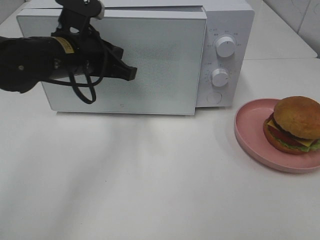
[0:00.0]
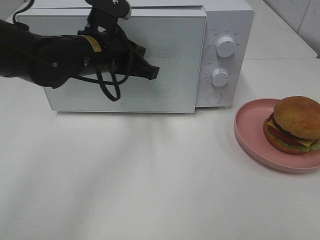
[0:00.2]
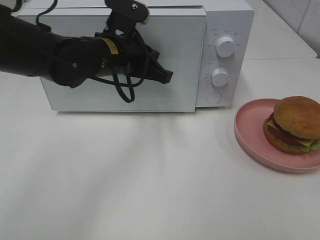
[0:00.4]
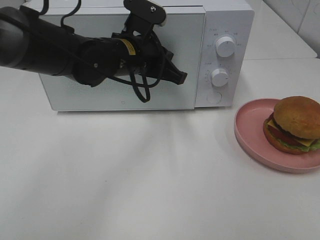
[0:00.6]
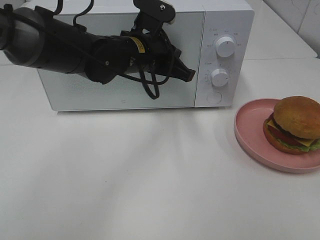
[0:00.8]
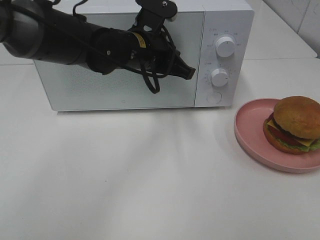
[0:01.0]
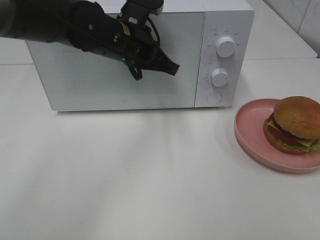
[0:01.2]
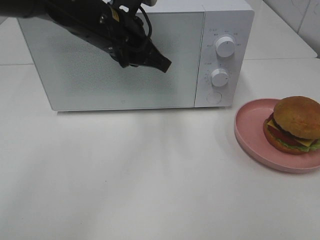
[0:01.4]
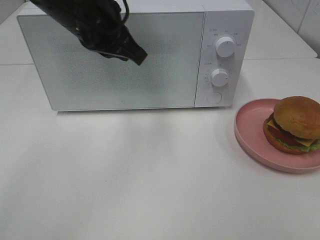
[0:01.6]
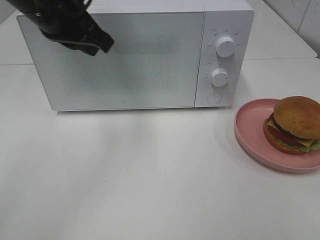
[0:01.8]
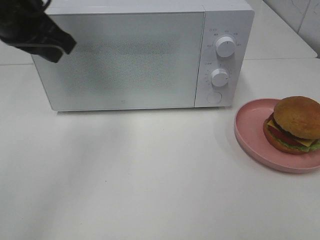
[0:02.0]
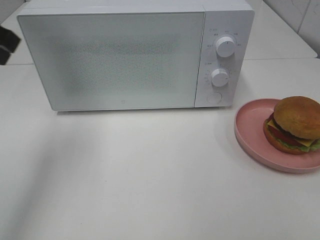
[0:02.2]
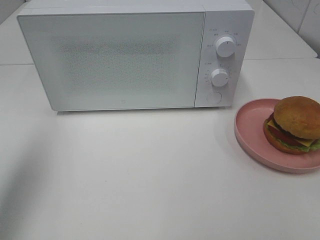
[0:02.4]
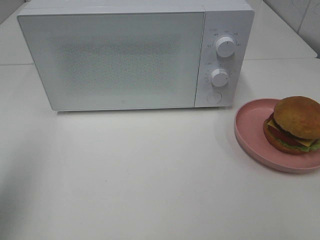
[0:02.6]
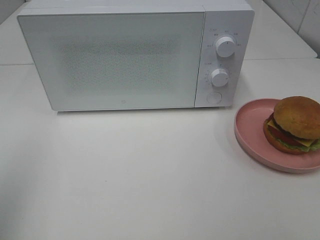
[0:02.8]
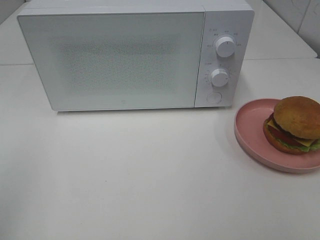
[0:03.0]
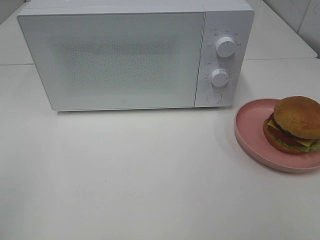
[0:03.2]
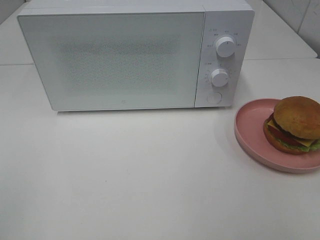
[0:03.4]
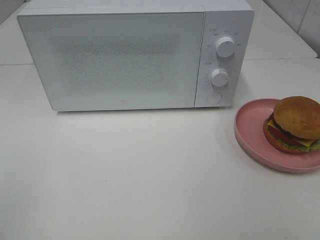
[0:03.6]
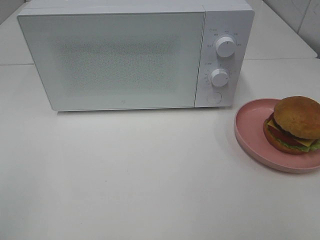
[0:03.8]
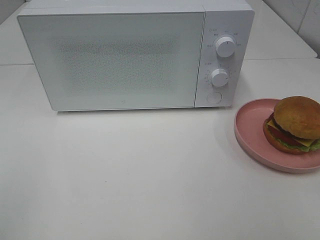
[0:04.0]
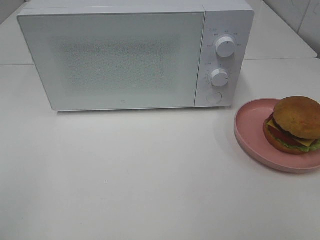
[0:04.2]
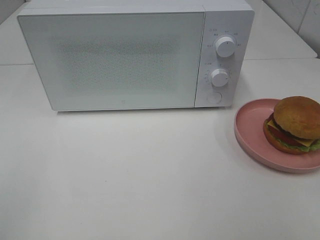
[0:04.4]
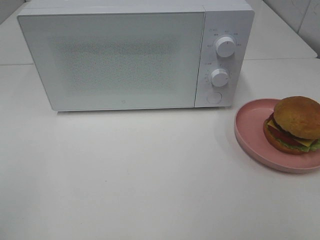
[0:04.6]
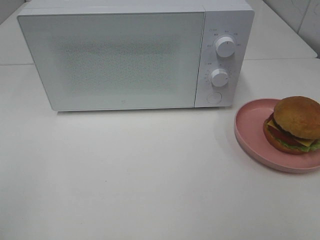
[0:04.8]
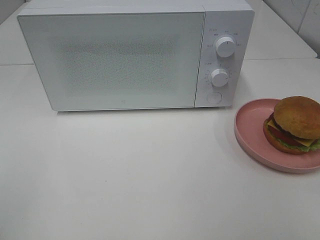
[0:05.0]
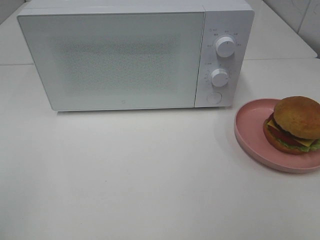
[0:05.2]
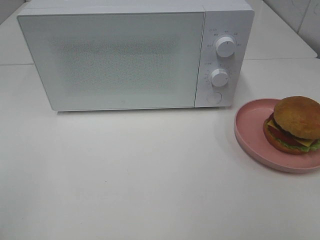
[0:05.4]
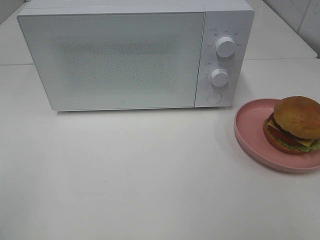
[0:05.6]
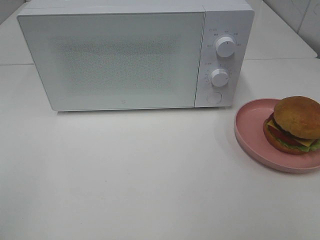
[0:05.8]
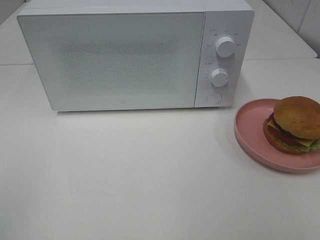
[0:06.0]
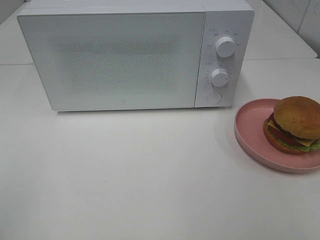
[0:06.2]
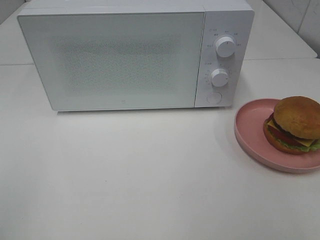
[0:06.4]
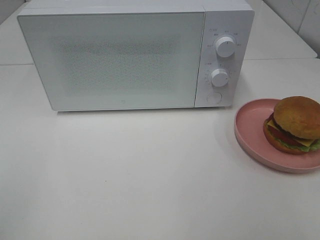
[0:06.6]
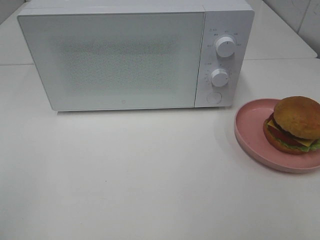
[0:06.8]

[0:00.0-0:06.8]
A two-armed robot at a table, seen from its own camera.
Task of the whole recording: Heat the burger.
0:00.0 to 0:01.4: The left gripper shifts about 5 cm to the right.
0:01.4 to 0:02.8: The left gripper moves to the left and backward, about 35 cm.
0:05.4 to 0:06.8: Both grippers stay about where they are.

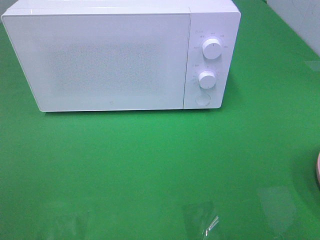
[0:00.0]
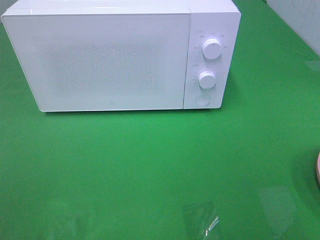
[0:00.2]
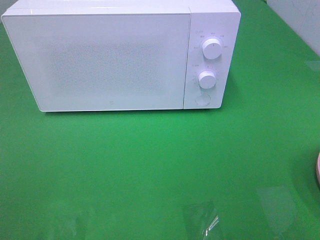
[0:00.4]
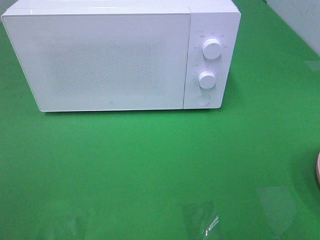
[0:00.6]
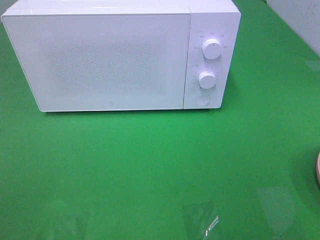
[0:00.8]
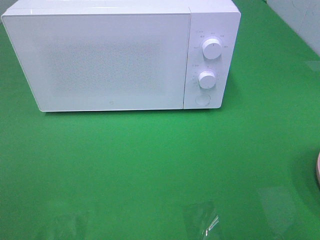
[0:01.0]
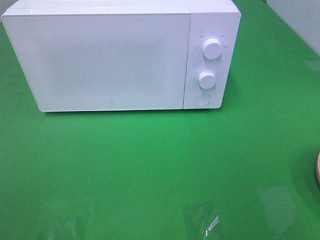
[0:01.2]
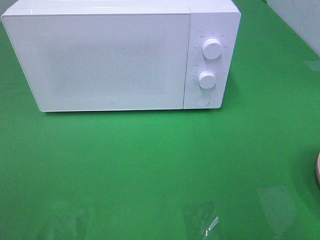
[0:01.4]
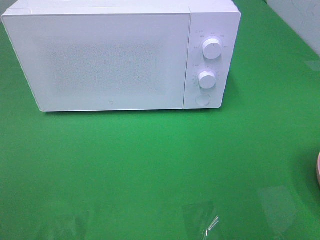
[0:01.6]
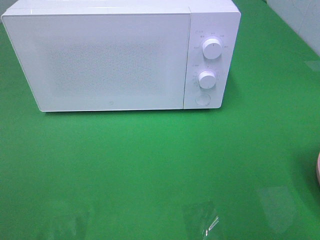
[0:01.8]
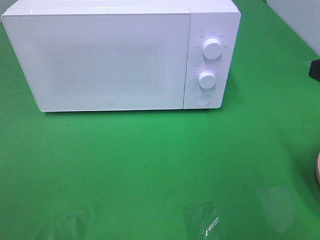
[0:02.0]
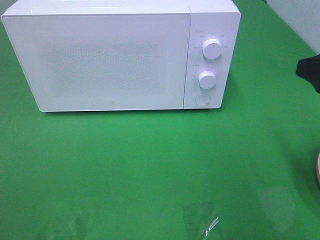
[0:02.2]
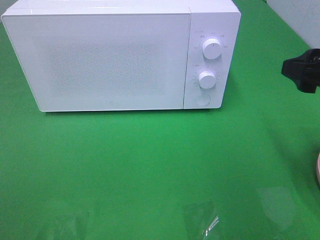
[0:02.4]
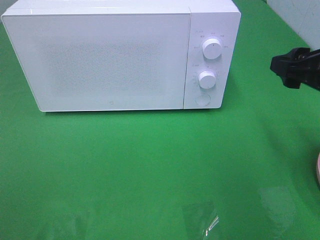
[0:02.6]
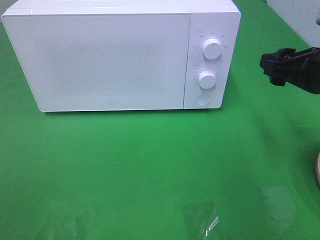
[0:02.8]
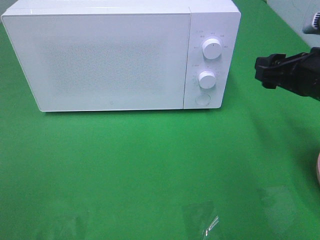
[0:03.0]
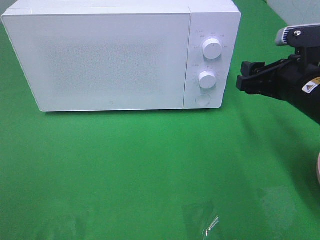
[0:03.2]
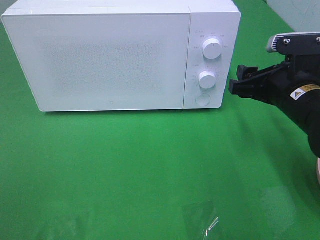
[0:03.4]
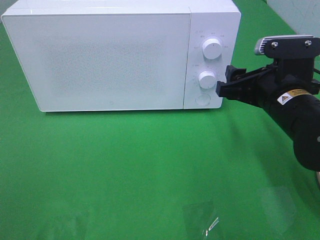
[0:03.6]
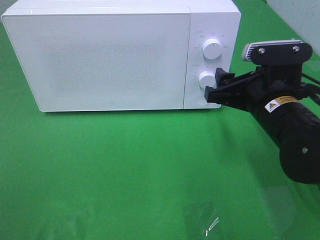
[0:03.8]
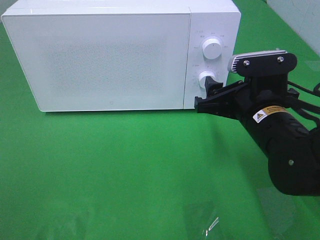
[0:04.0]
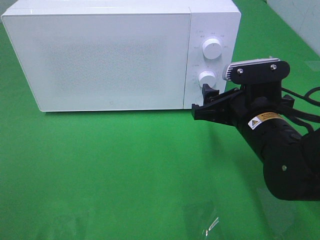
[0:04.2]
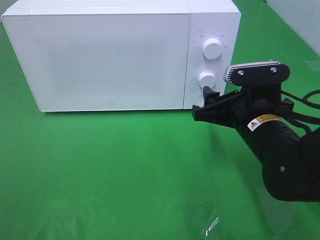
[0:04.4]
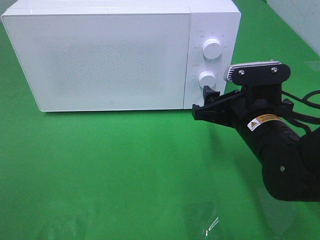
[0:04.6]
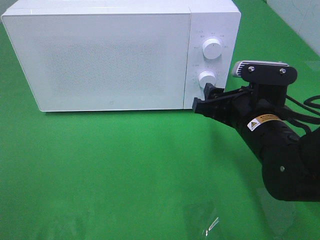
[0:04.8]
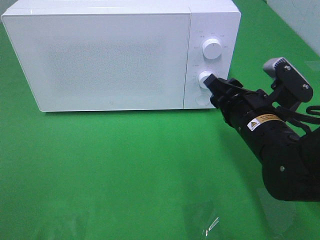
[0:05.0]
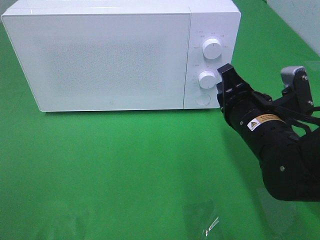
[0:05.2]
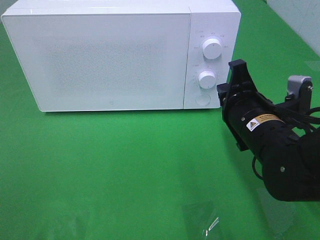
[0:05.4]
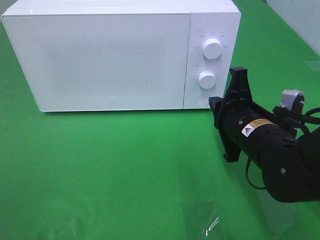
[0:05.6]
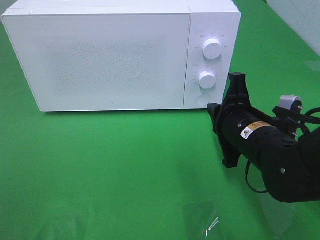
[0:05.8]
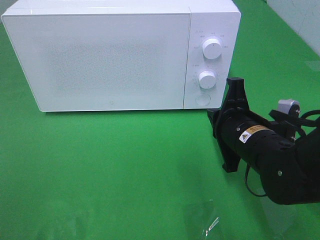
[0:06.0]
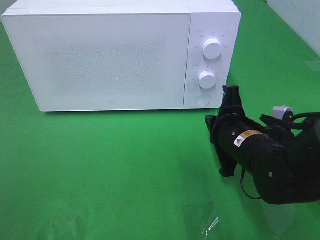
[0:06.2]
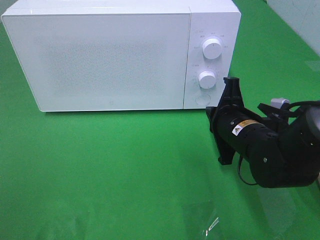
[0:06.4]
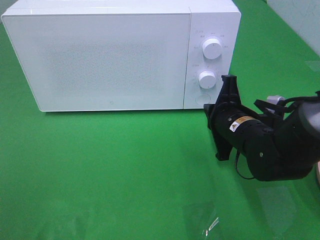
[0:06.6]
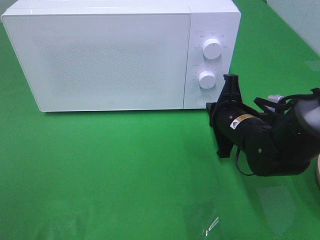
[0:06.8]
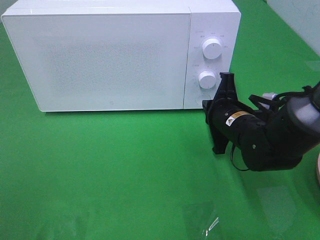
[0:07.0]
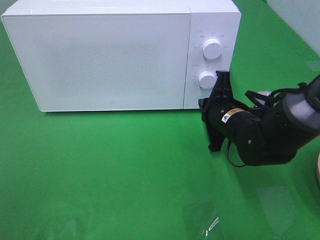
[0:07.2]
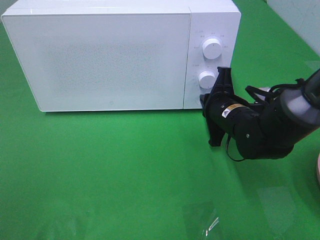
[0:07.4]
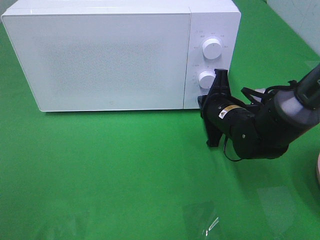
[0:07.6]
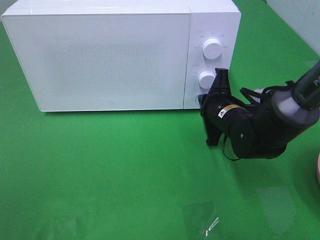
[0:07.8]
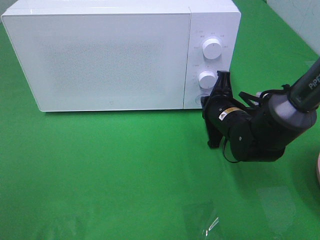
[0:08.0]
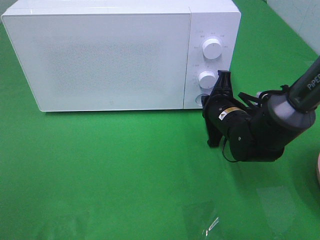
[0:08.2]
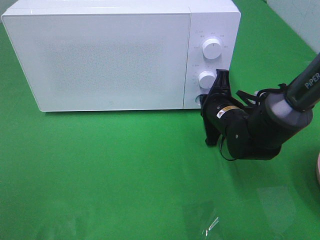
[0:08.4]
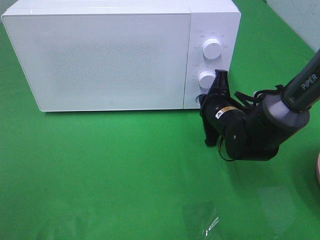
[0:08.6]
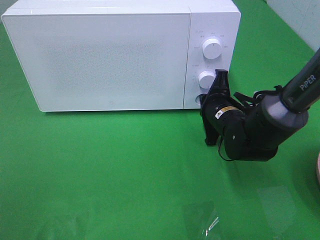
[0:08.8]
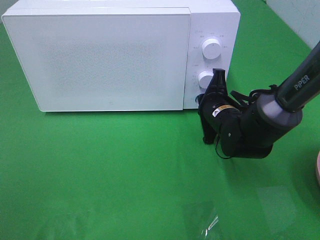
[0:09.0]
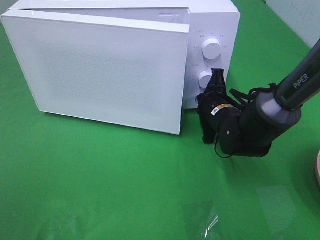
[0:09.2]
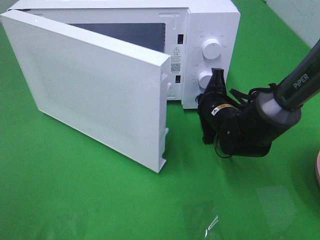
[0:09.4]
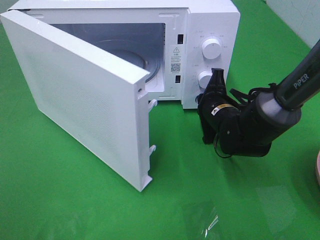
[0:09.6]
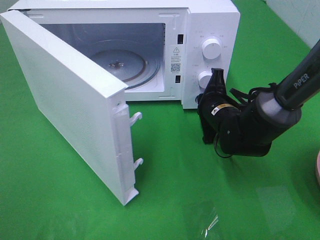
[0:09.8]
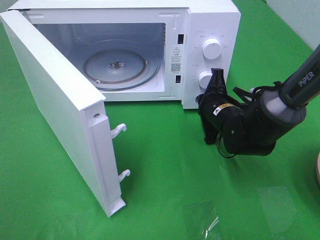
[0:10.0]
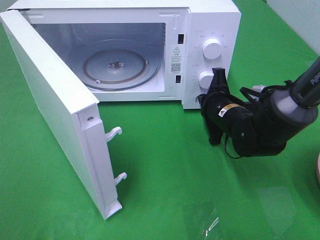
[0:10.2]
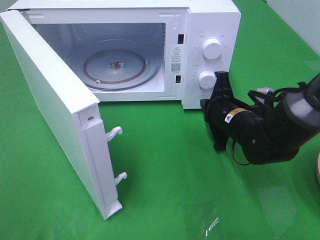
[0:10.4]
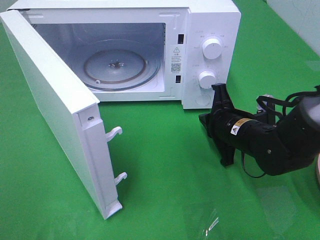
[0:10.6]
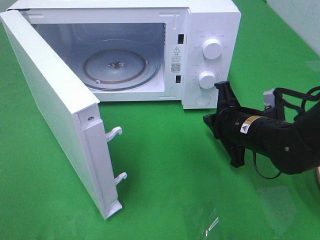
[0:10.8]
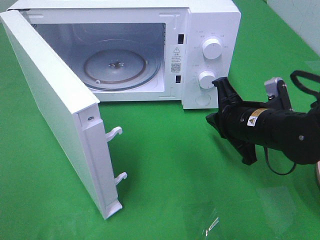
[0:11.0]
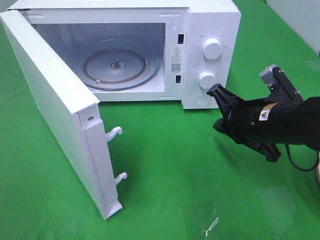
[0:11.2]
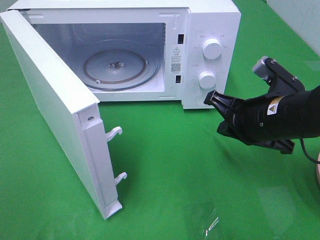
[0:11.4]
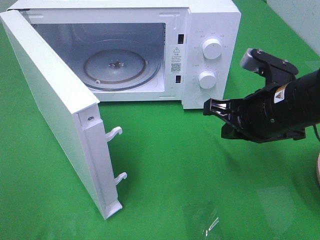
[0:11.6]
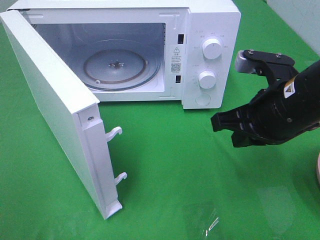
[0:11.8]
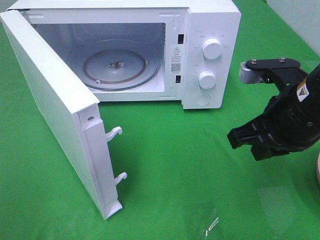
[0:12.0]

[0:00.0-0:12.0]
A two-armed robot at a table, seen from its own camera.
Task of the whole recording: Heat the burger.
Step, 0:00.0 to 0:10.4: Right hand: press the switch.
0:01.6 to 0:03.0: The right gripper moves forward and downward, some 15 cm.
0:03.0 to 0:04.4: The right gripper moves to the left and downward, approximately 10 cm.
0:04.4 to 0:06.0: The right gripper closes up.
0:06.0 to 0:07.6: The right gripper moves forward, about 10 cm.
0:07.6 to 0:09.0: The grippers stay close to where they were, moving slightly.
0:10.4 to 0:12.0: The right gripper travels upward and backward by roughly 15 cm.

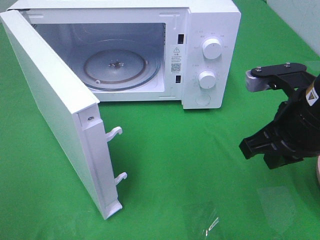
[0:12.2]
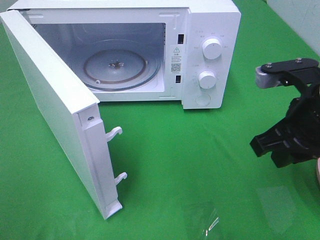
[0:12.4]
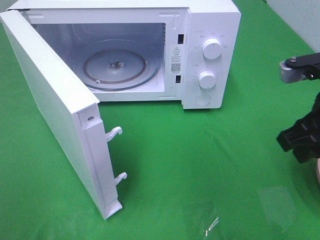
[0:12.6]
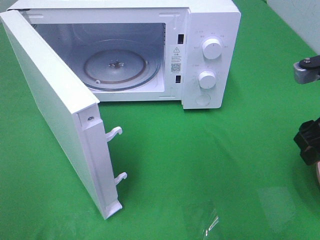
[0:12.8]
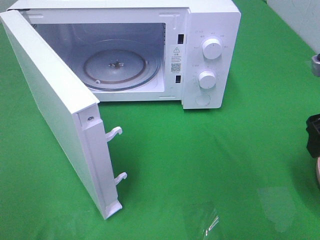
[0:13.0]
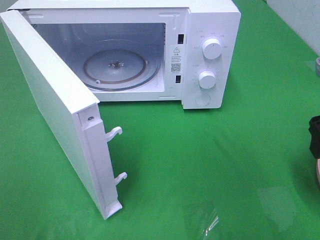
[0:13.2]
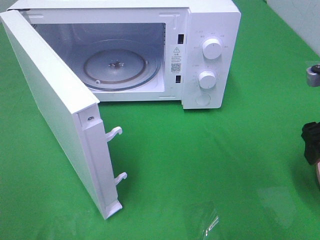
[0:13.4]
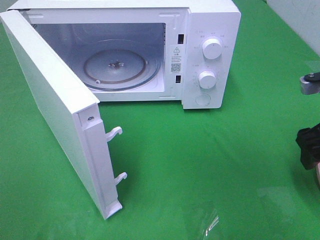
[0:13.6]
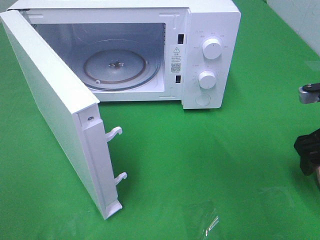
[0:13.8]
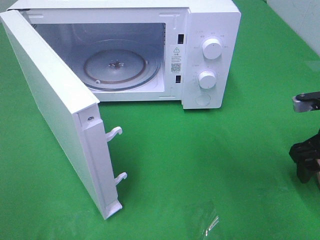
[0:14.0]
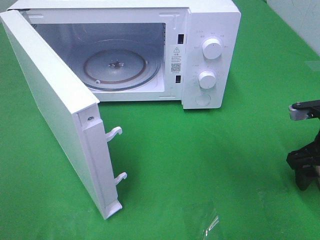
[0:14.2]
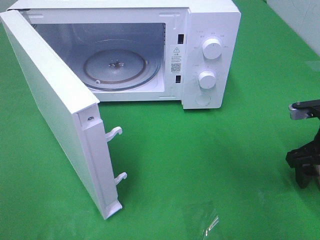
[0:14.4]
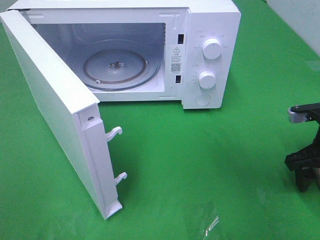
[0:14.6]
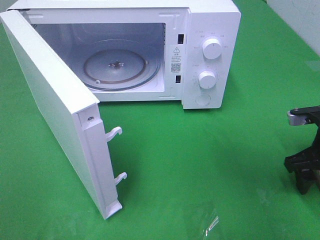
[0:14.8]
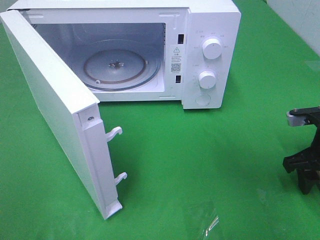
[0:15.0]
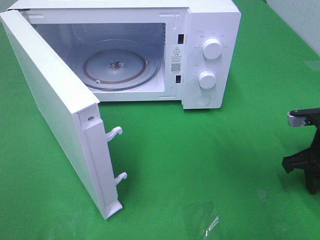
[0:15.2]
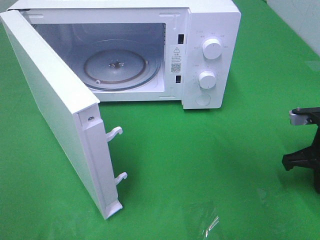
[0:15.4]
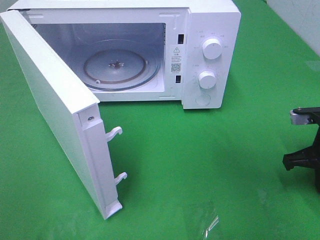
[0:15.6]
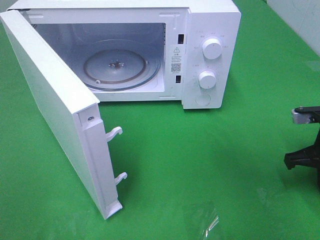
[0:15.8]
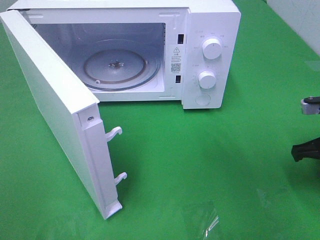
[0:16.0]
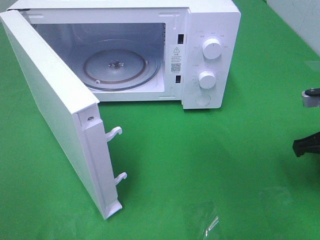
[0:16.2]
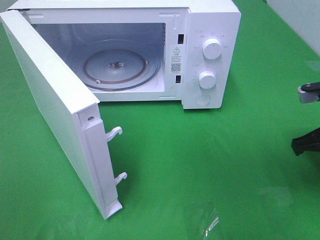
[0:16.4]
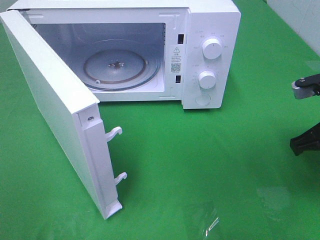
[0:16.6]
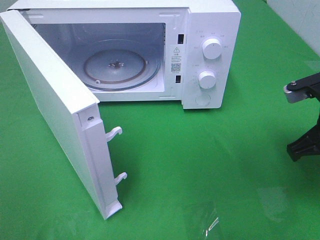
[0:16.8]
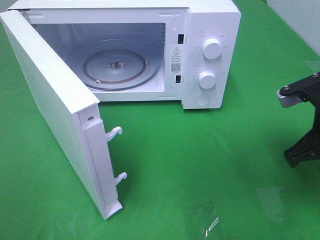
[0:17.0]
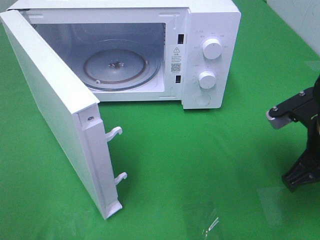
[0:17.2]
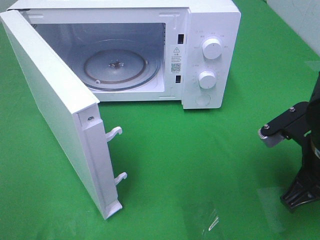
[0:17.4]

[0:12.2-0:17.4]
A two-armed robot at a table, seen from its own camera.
Task of the whole recording: Heat the burger.
Step, 0:12.2 to 0:15.4: Right hand: grab the plate with the hamburger.
0:12.2 to 0:14.0: The right gripper is displaced to the right and downward by some 15 cm, and opens its fingers.
0:14.0 to 0:15.6: The right gripper closes.
0:15.6 to 0:17.4: The right gripper shifts roughly 10 cm to the left and backward.
